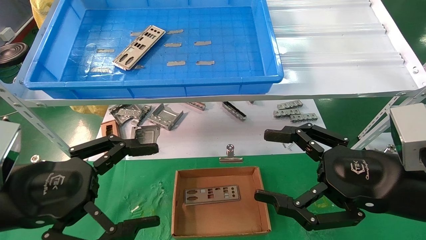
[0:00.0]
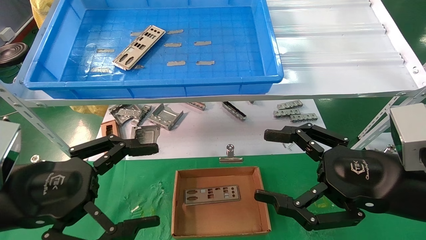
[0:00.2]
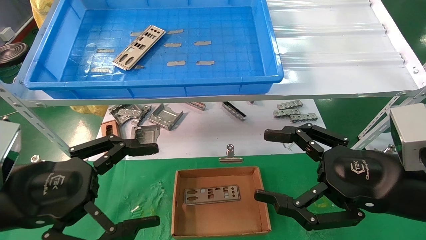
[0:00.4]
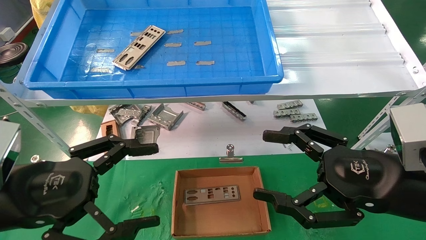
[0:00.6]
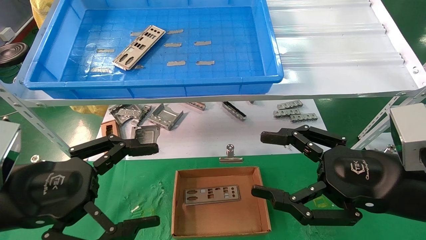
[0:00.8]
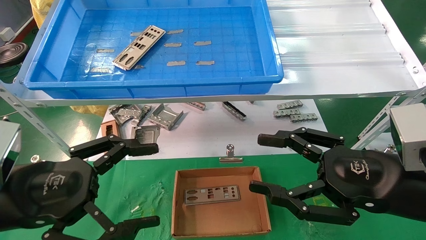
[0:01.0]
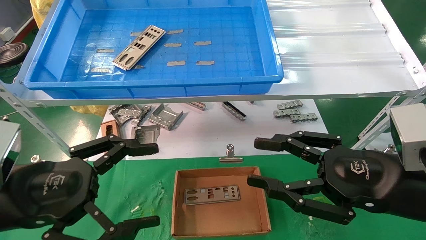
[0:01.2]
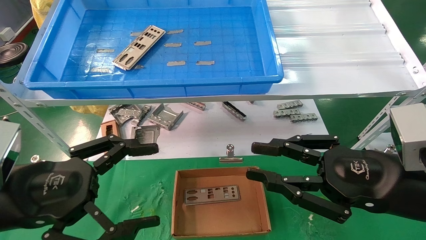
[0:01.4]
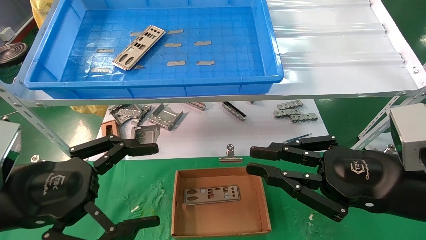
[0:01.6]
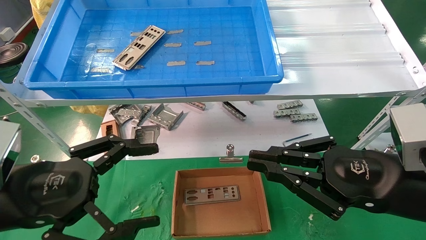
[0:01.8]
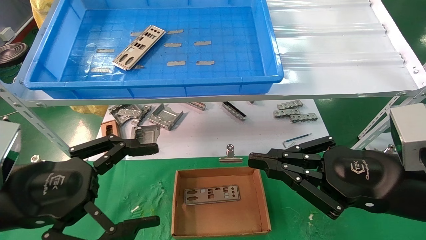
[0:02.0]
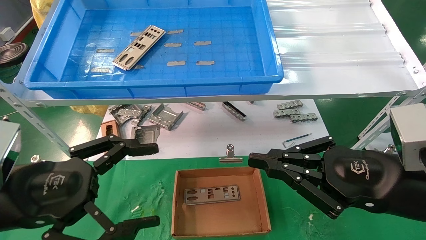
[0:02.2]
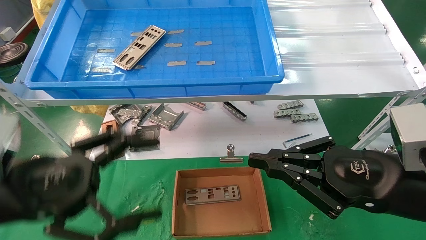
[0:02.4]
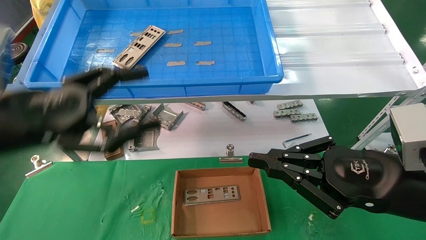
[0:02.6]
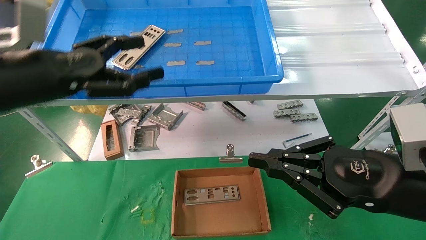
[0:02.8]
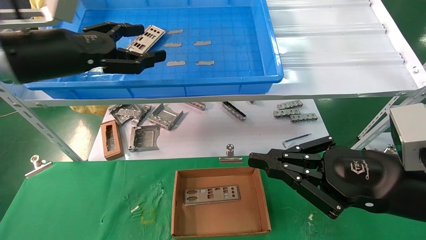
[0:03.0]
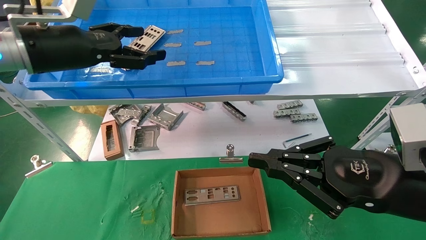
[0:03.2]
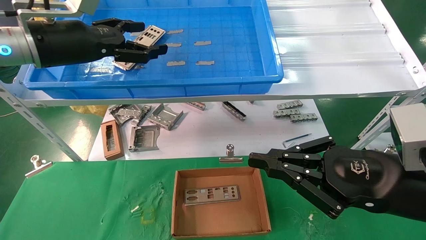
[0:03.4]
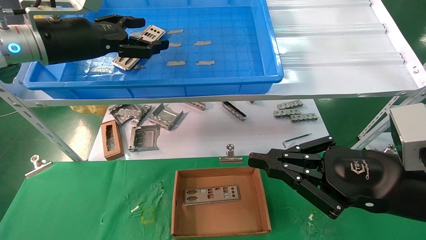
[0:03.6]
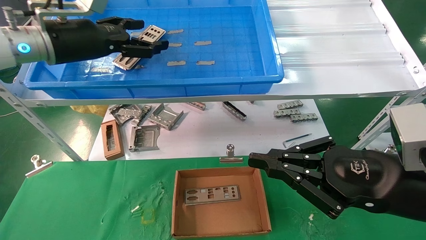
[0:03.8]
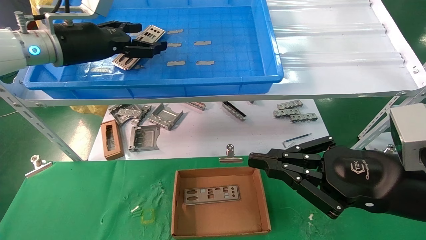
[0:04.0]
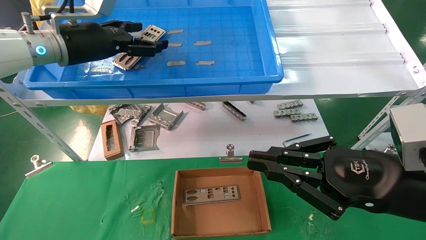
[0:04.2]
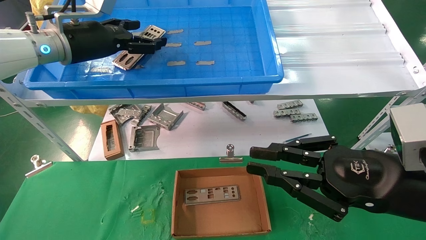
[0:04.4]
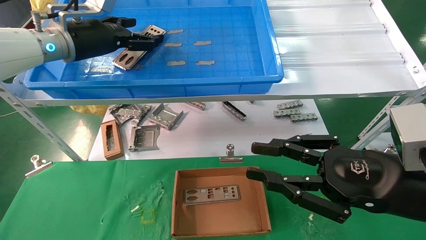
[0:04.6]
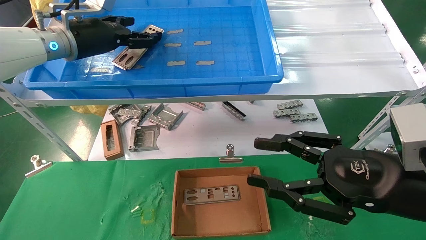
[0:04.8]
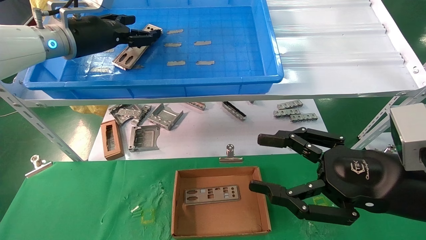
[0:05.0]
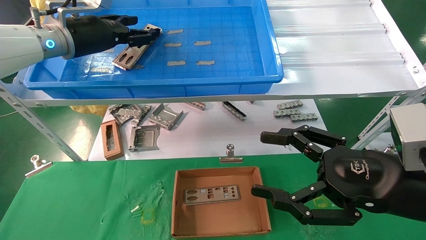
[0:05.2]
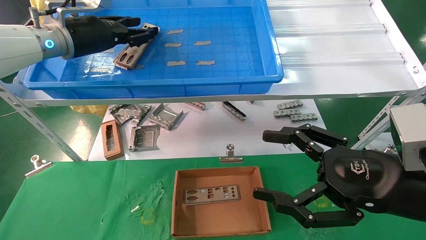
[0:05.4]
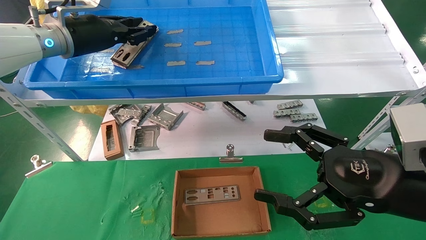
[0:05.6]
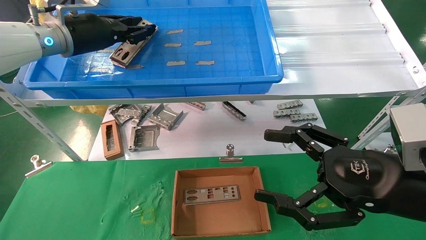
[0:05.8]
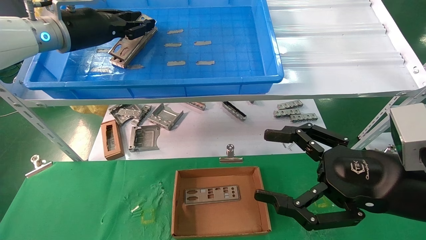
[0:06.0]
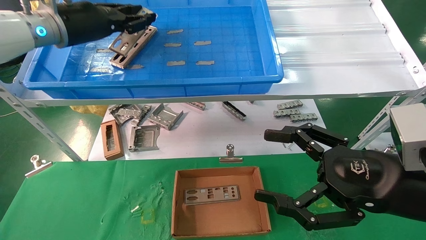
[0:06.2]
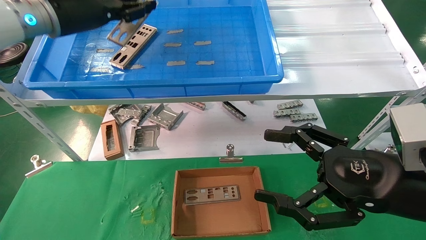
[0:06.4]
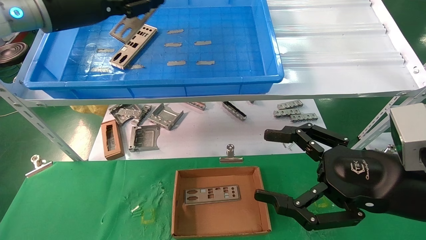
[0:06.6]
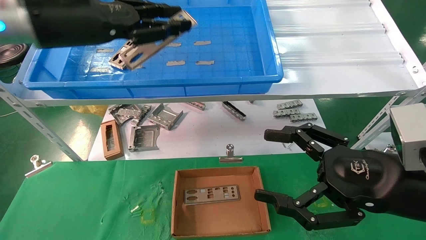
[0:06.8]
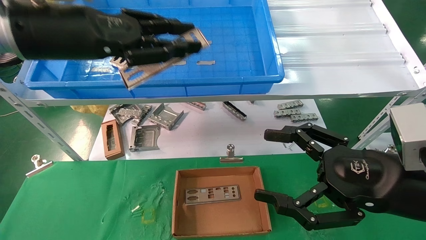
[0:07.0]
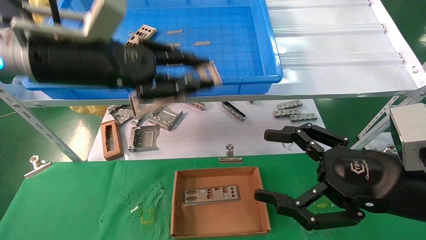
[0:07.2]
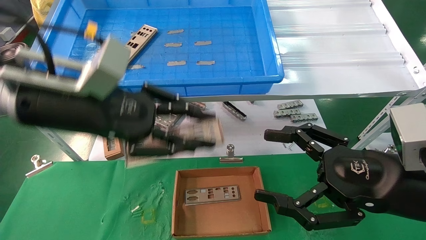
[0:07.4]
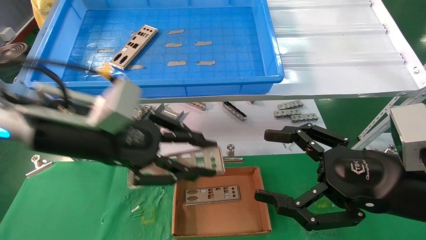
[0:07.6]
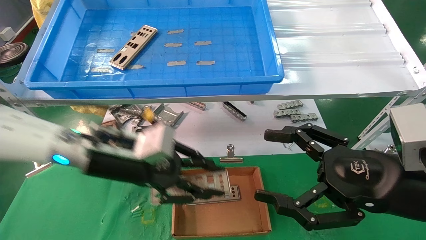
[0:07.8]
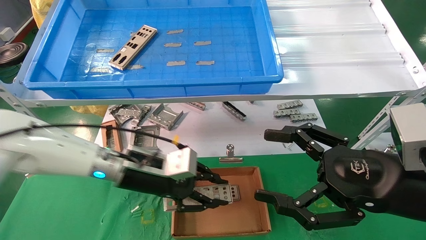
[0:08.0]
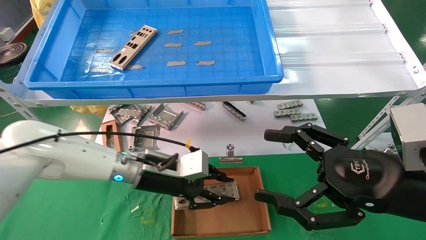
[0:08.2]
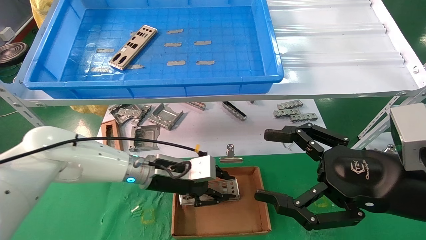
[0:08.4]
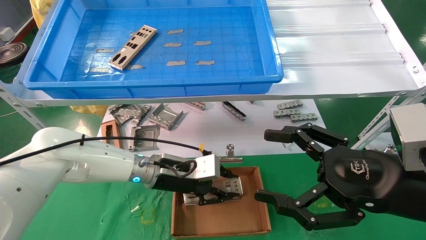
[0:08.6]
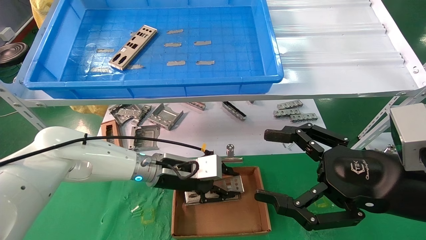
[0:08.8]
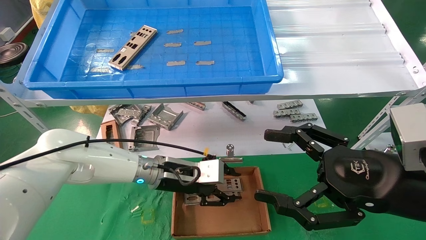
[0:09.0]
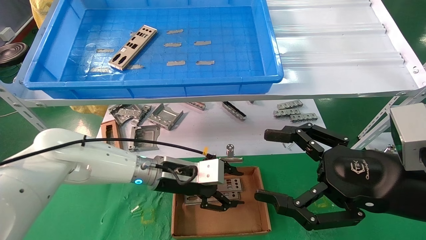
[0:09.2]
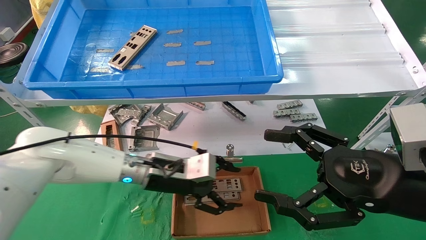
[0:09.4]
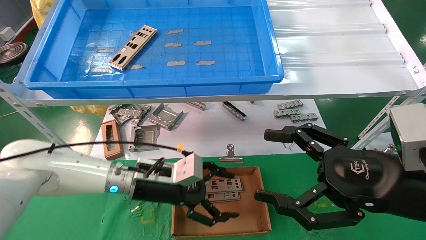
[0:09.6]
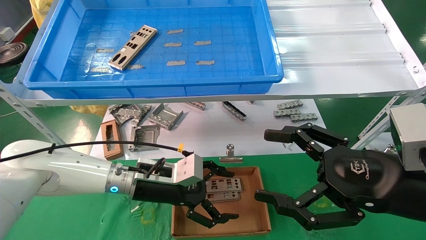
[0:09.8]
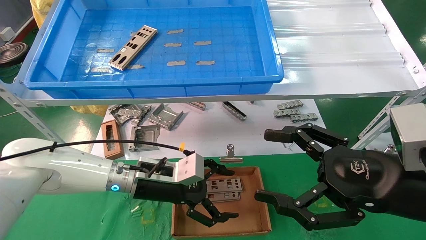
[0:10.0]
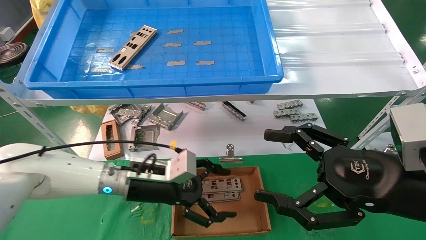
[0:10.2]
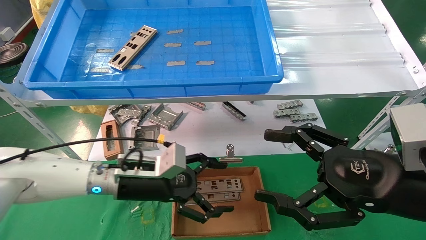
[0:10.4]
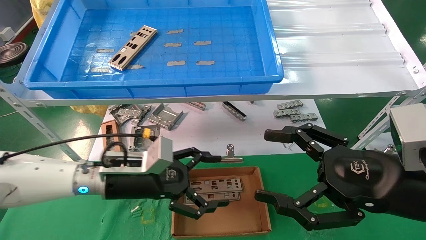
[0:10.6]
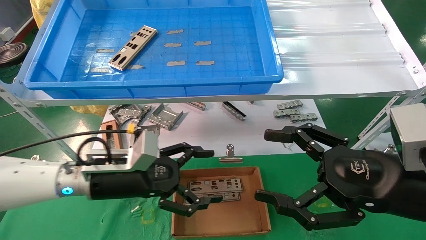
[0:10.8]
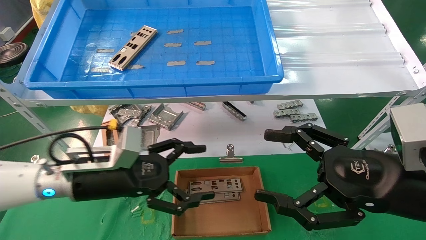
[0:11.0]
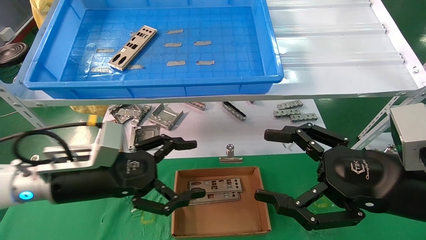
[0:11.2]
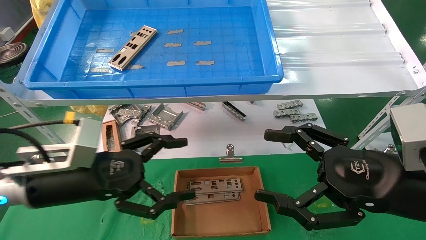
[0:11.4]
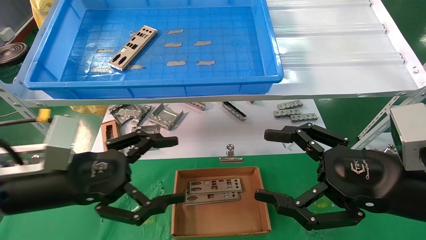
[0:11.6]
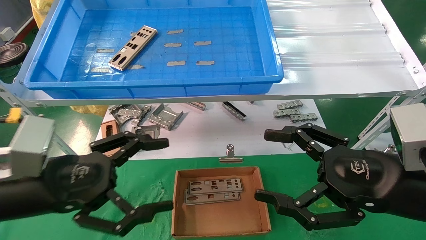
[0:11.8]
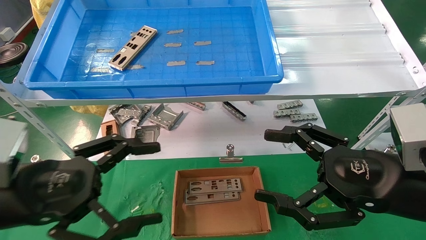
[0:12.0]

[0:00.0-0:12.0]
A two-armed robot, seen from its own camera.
Task of the whole recording: pick up the parts on the tray and put them in the cardboard box.
Step, 0:02.8 to 0:05.8: Pick up the IO bracket from the container box.
Step, 0:06.0 to 0:09.0: Place the IO bracket into the ingredient slot.
0:00.0 to 0:01.6: The right gripper closes up.
0:01.6 to 0:03.0: The left gripper travels forward and upward by roughly 20 cm.
0:03.0 to 0:04.4: The left gripper travels forward by about 10 cm.
0:04.4 to 0:06.0: The left gripper closes up, while the right gripper opens its fingers.
0:06.0 to 0:07.6: The left gripper is displaced downward, backward and to the right by about 20 cm.
0:07.6 to 0:09.0: The left gripper shifts roughly 20 cm downward, forward and to the right.
0:09.0 to 0:10.4: The left gripper heads to the left, covering roughly 5 cm, and opens.
0:10.4 to 0:12.0: The left gripper heads backward, to the left and upward, covering approximately 20 cm.

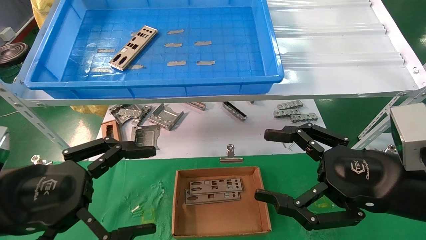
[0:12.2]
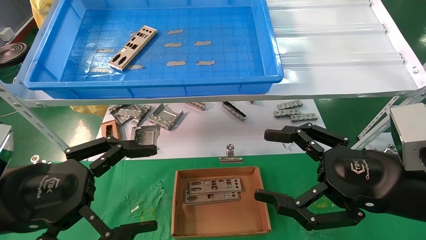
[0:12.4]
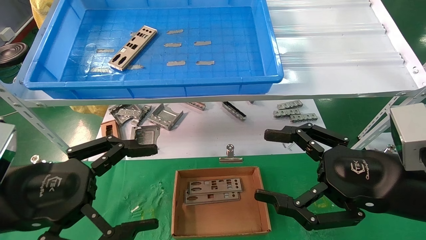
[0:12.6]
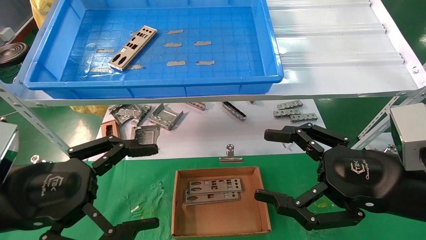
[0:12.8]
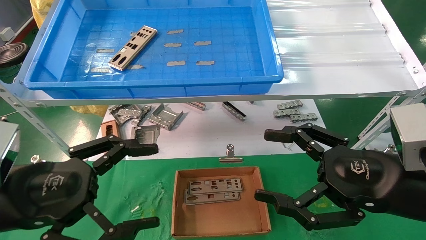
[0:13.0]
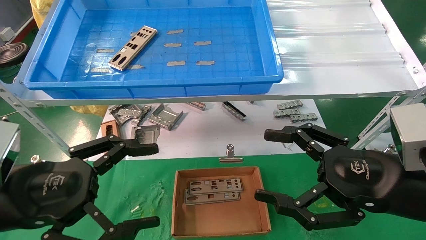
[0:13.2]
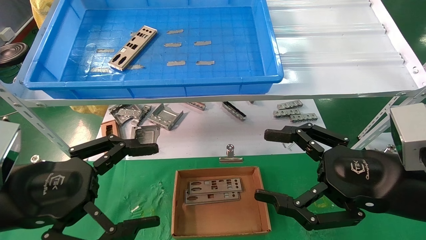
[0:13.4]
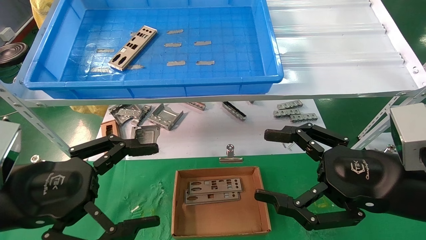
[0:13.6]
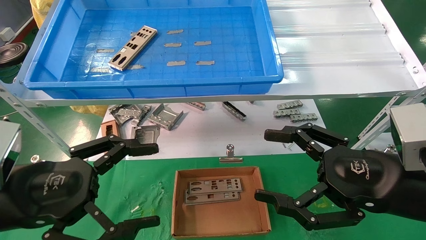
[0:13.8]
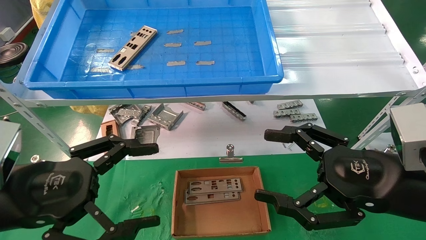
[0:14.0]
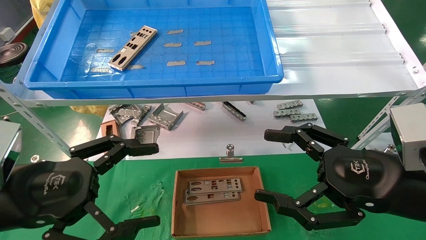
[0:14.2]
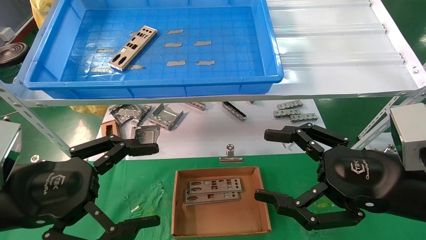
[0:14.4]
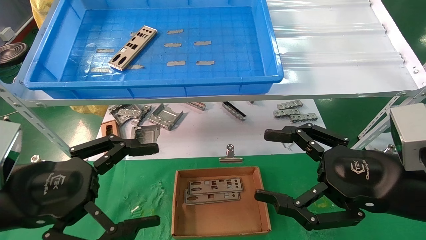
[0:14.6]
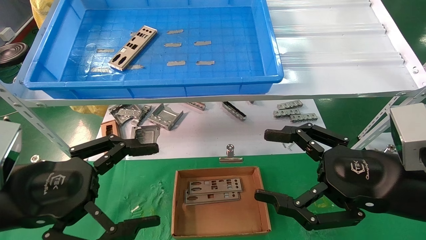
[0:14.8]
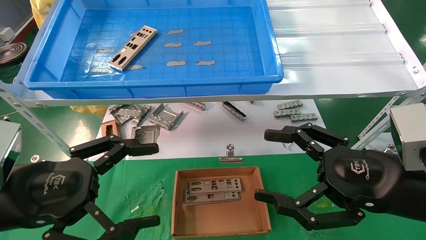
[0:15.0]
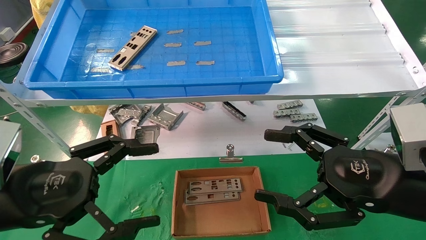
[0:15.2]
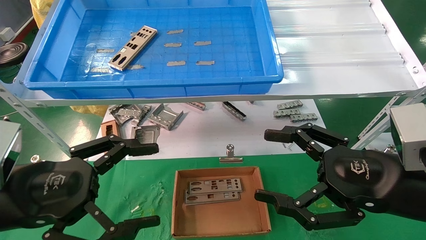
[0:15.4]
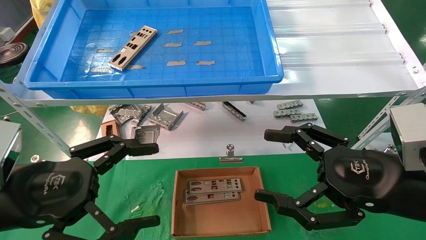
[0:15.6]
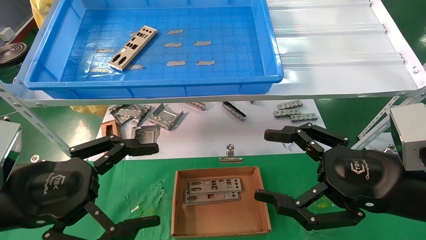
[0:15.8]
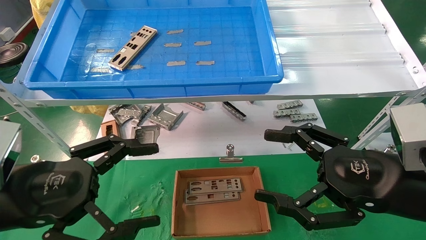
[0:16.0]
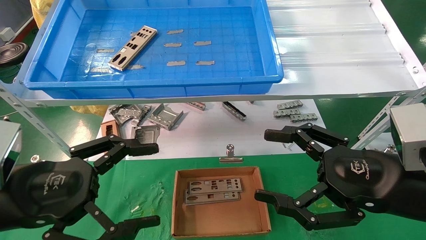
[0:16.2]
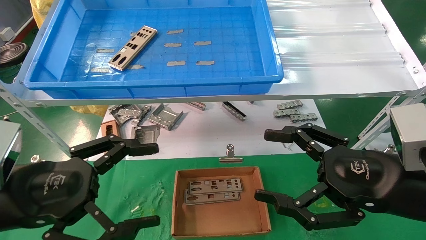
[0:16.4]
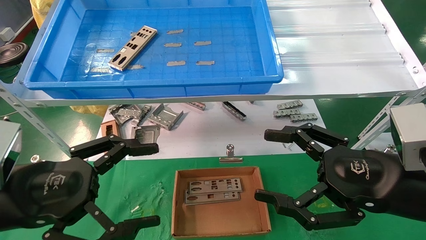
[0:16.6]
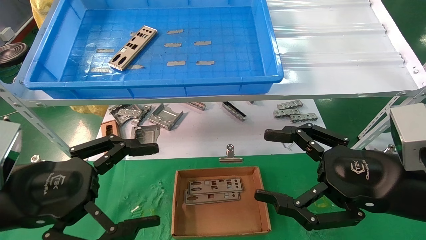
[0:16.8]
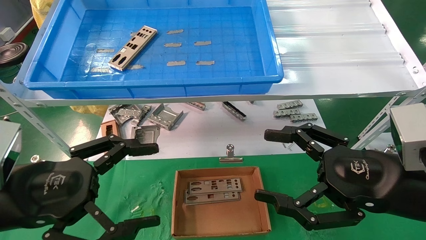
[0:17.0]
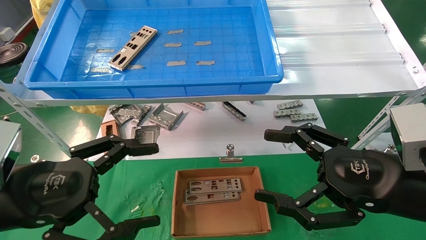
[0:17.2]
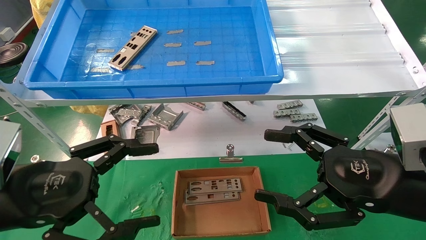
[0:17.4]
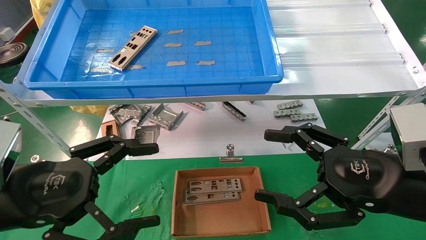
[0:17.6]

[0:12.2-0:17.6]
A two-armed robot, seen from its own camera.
Task of the whole recording: pick up the parts on the tray and put them in the cardboard box.
0:12.2 to 0:17.6: Neither gripper changes place.
